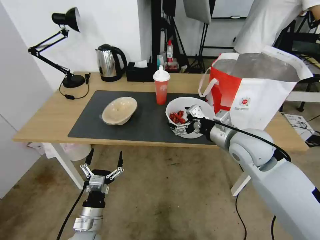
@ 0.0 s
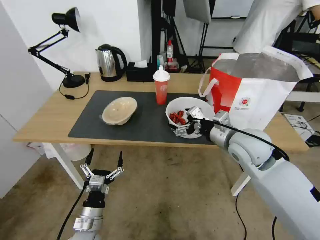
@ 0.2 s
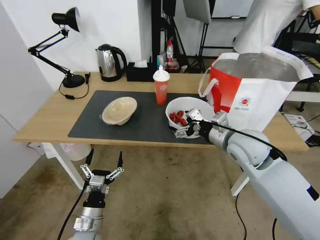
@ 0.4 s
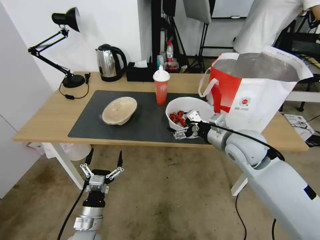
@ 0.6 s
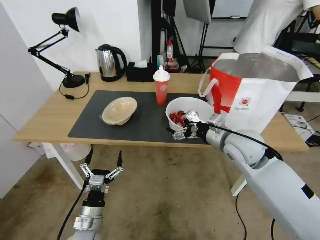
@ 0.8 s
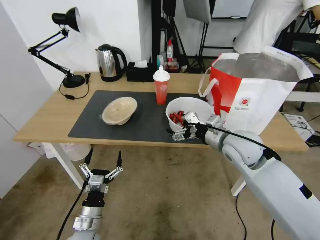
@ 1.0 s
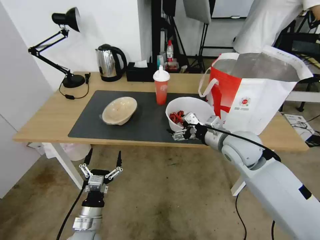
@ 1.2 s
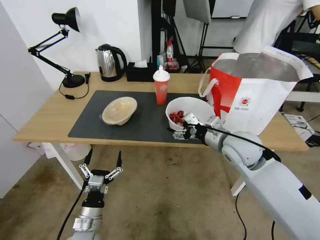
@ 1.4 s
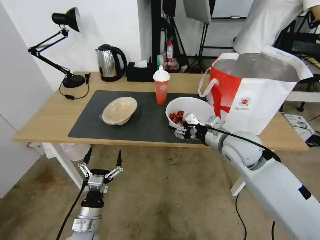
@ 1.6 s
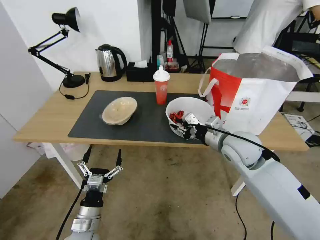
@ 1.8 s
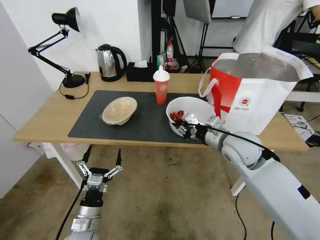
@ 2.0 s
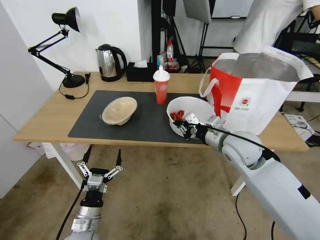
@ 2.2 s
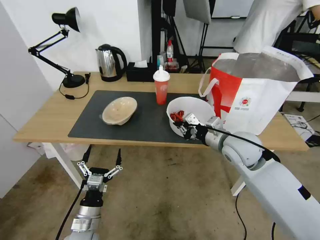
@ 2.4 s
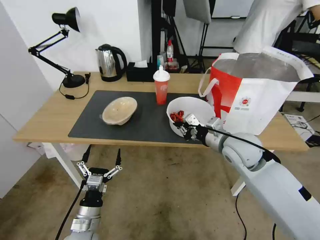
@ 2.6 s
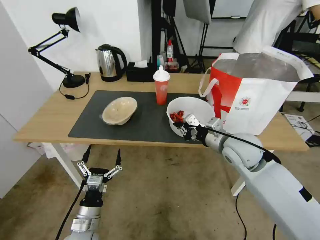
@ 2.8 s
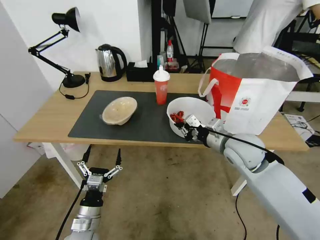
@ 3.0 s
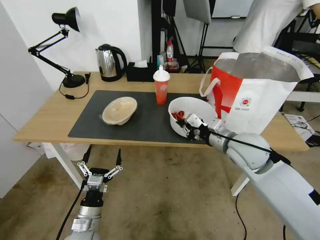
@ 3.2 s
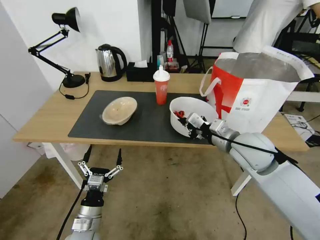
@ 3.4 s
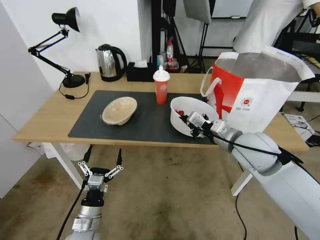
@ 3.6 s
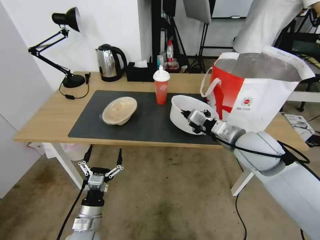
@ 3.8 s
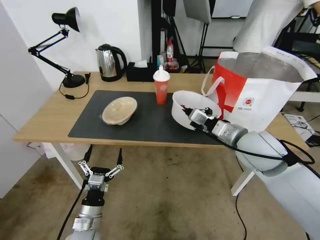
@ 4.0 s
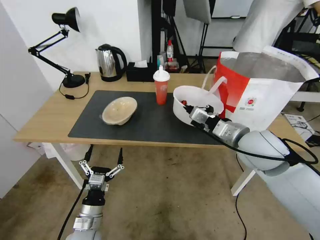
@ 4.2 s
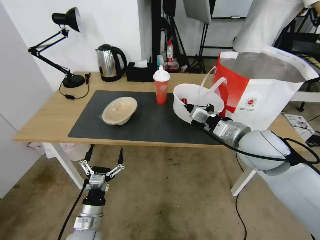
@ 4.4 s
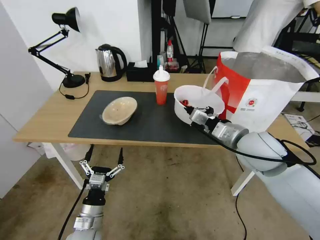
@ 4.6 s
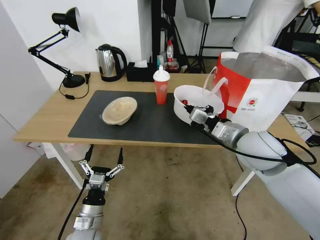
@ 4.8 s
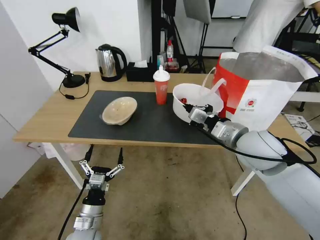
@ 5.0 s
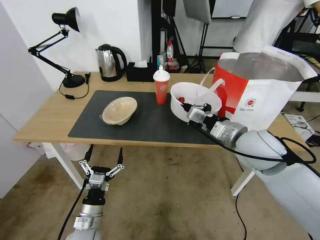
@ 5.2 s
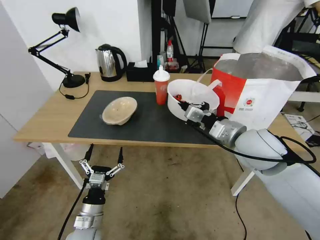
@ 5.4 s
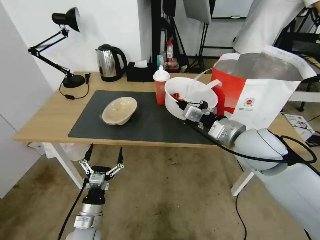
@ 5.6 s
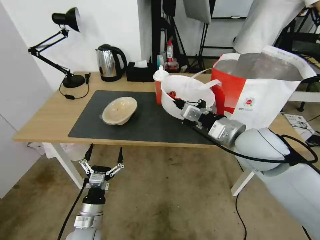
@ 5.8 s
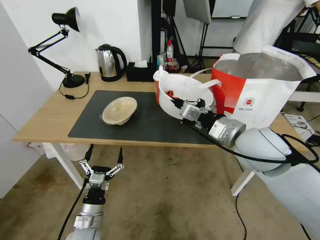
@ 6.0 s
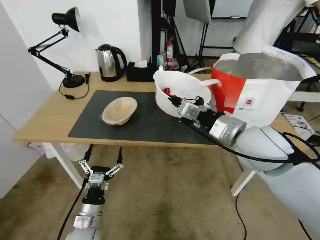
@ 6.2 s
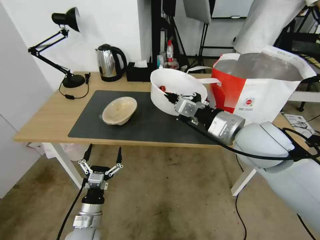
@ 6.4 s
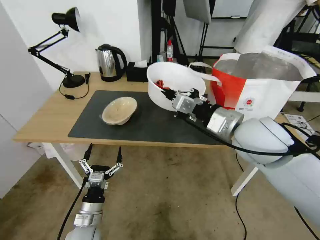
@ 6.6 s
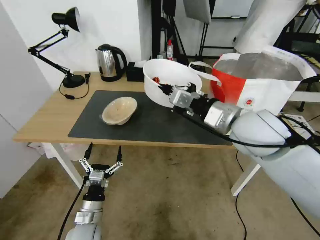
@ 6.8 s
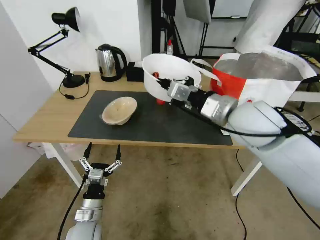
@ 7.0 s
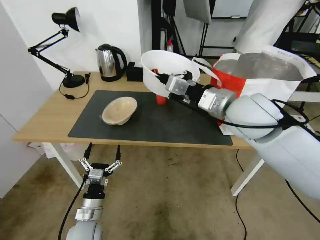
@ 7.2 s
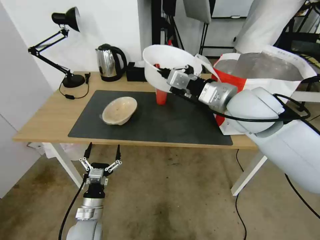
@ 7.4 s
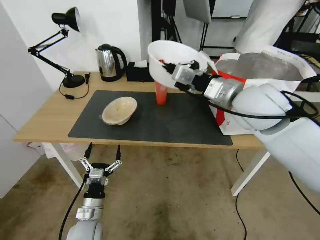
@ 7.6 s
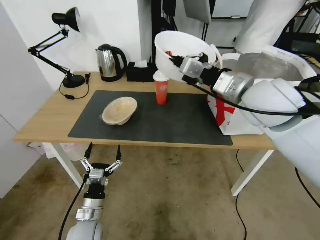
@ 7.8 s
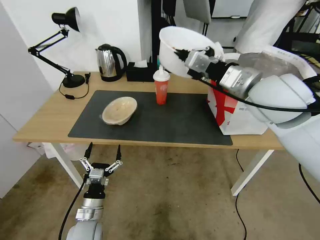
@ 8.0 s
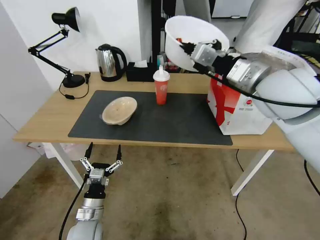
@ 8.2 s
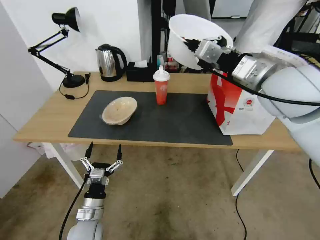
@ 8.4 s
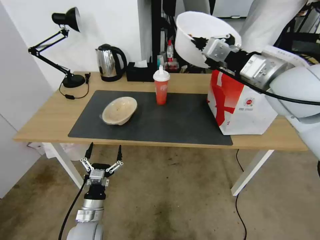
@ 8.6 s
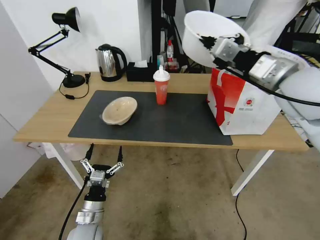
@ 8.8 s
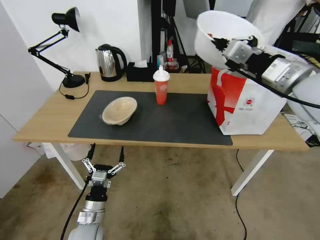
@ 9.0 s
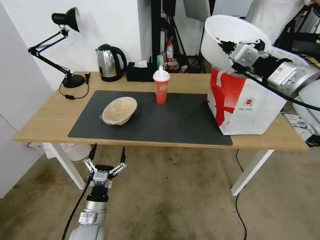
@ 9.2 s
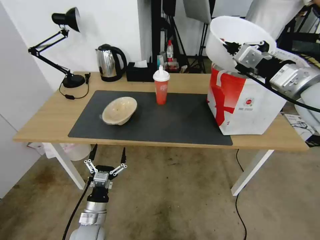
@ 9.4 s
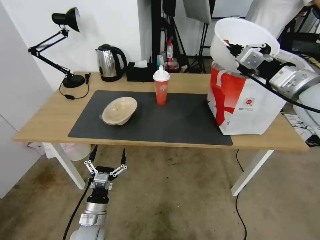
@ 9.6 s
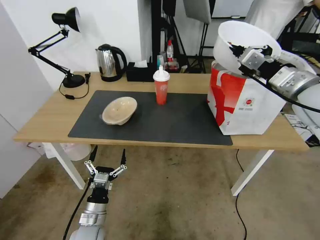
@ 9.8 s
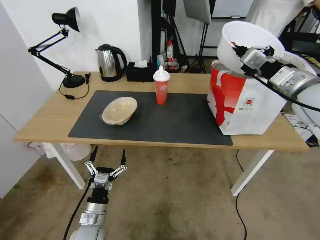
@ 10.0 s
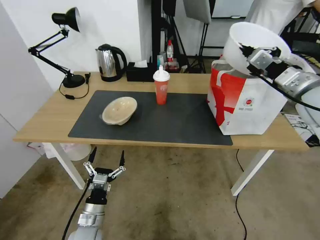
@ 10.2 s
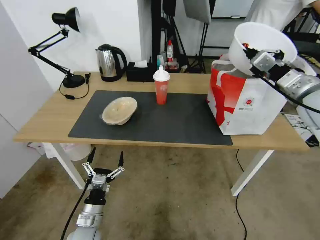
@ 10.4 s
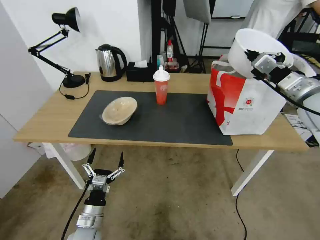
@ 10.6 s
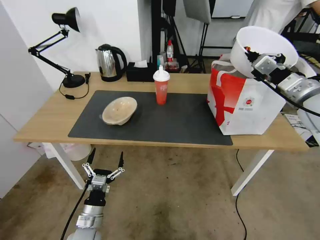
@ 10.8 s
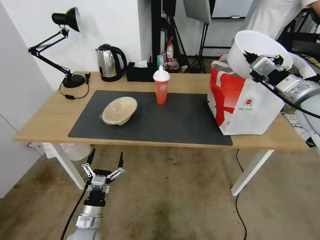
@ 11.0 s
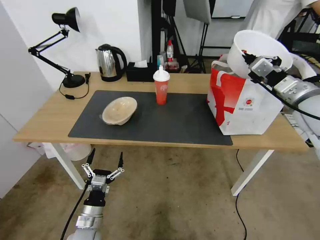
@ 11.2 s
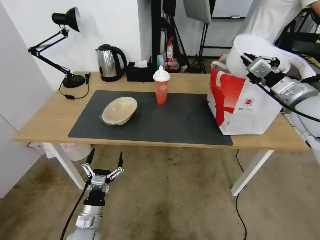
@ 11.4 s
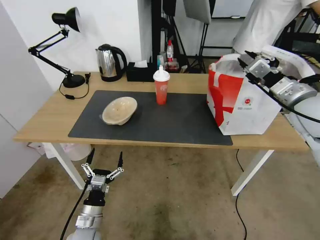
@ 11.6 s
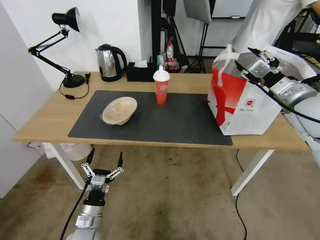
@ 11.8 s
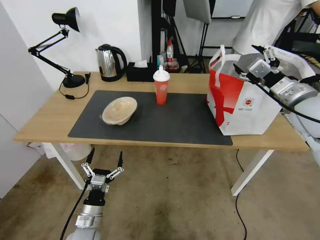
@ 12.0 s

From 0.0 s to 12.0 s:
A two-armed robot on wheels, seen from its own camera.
Task of the whole recording: Pick up the trash from the table and place it into the takeout bag.
From 0.0 s to 1.6 s: The right gripper closes its fingers.
From 1.6 s to 3.0 s: The right gripper closes.
From 3.0 s to 4.4 s: The right gripper moves some 5 cm.
From 4.4 s to 6.0 s: The grippers stay close to where they were, moving slightly.
From 6.0 s to 7.6 s: The right gripper heads upward and forward, covering about 10 cm.
From 7.6 s to 9.0 s: The right gripper heads to the right, covering roughly 10 cm.
From 9.0 s to 10.4 s: The right gripper heads to the right and downward, covering roughly 10 cm.
From 10.4 s to 12.0 s: The right gripper opens.

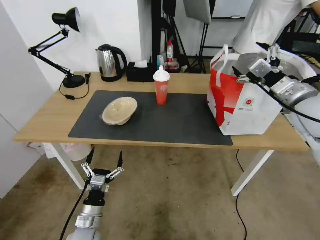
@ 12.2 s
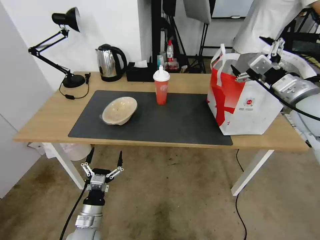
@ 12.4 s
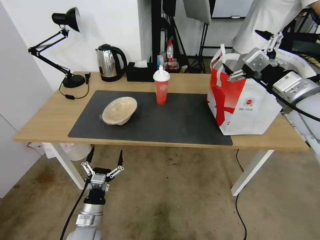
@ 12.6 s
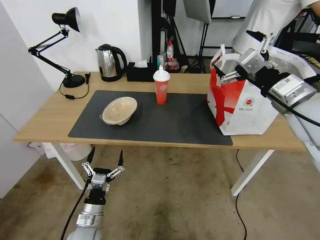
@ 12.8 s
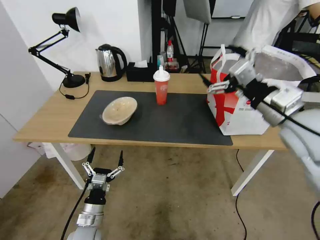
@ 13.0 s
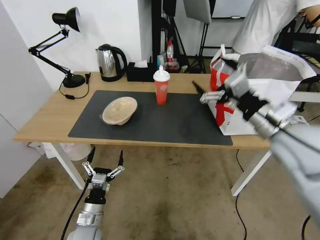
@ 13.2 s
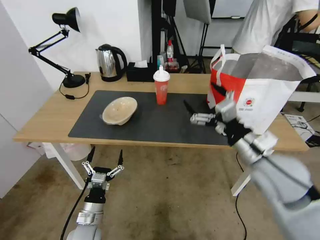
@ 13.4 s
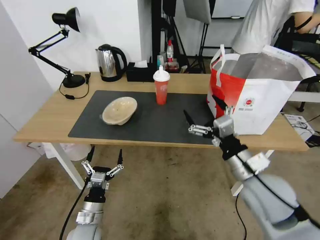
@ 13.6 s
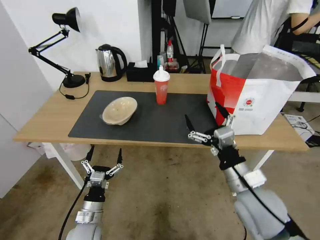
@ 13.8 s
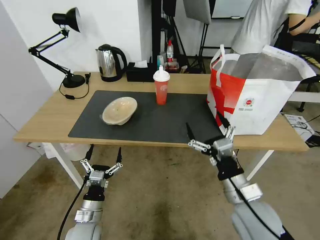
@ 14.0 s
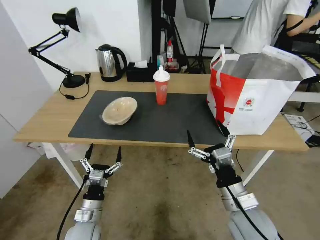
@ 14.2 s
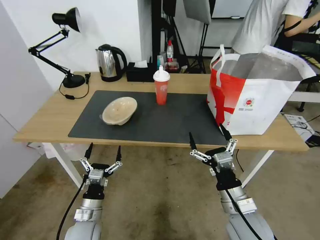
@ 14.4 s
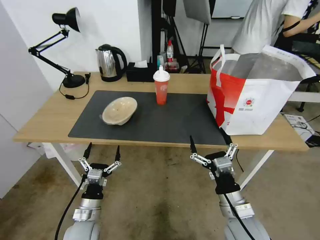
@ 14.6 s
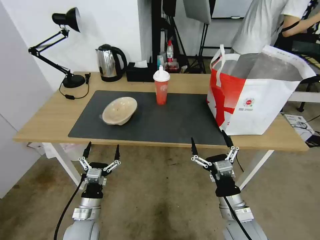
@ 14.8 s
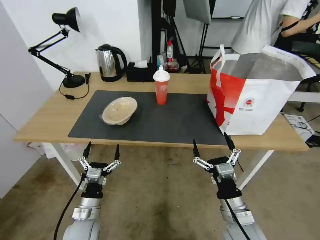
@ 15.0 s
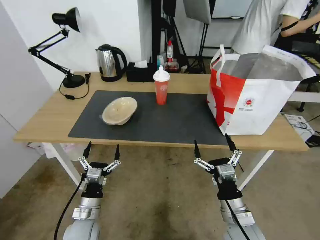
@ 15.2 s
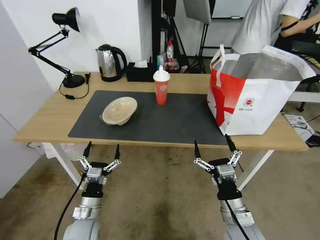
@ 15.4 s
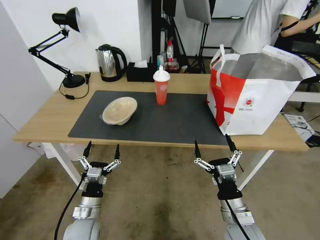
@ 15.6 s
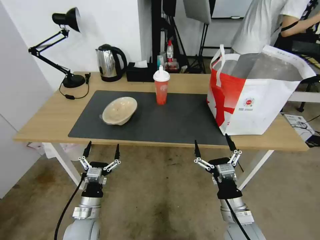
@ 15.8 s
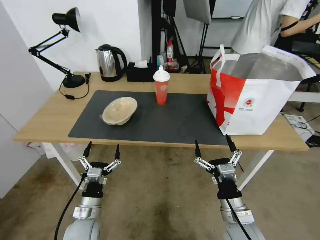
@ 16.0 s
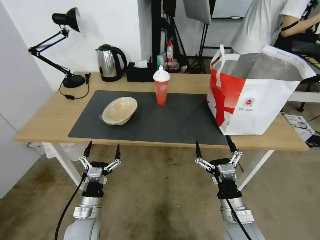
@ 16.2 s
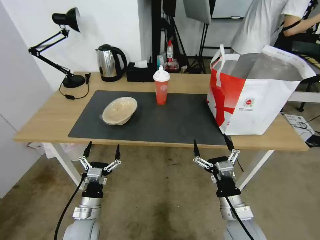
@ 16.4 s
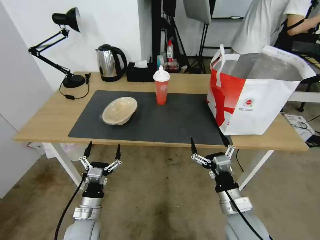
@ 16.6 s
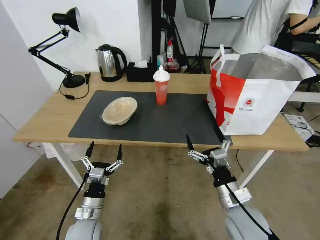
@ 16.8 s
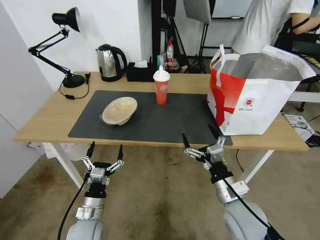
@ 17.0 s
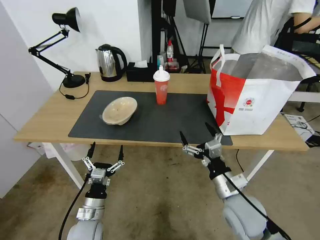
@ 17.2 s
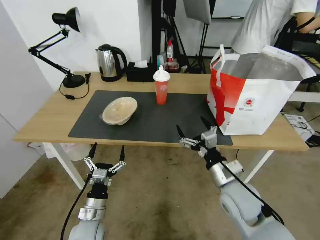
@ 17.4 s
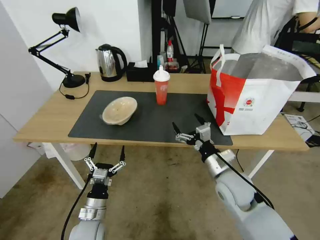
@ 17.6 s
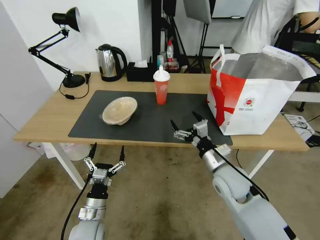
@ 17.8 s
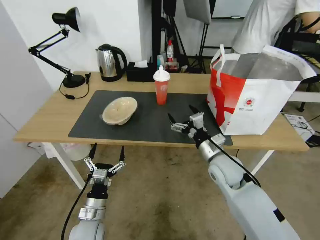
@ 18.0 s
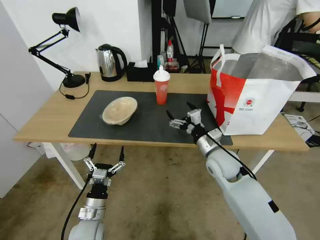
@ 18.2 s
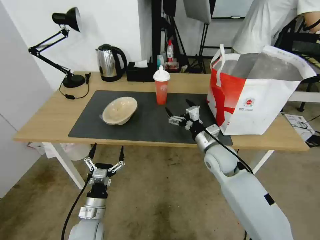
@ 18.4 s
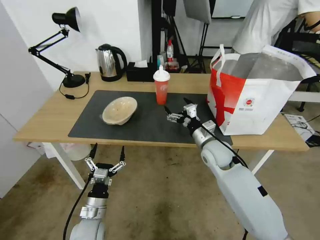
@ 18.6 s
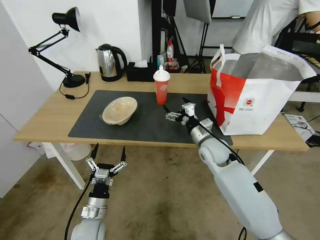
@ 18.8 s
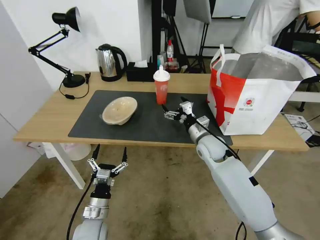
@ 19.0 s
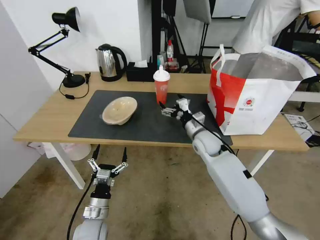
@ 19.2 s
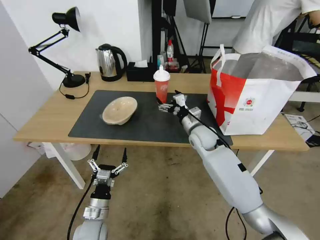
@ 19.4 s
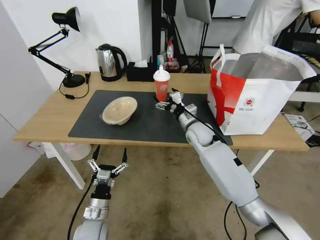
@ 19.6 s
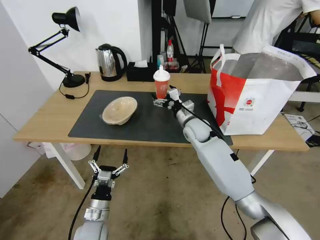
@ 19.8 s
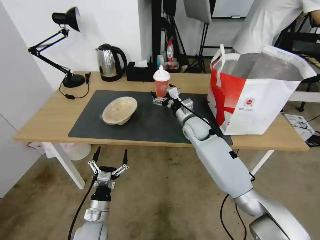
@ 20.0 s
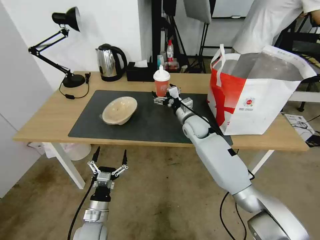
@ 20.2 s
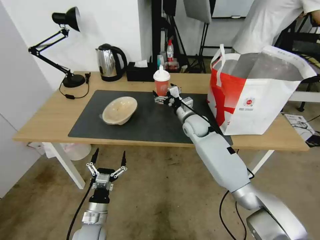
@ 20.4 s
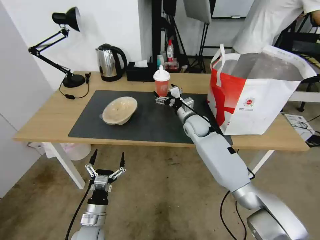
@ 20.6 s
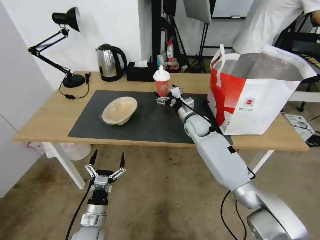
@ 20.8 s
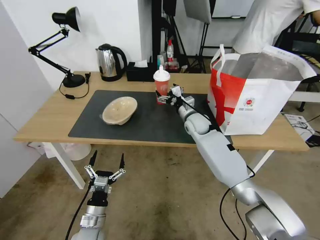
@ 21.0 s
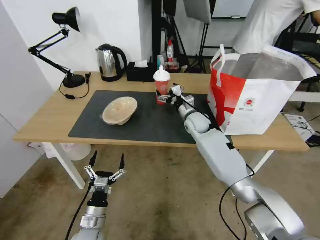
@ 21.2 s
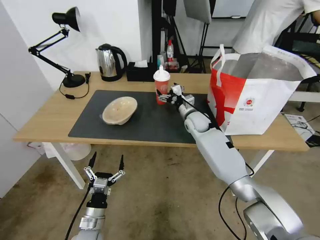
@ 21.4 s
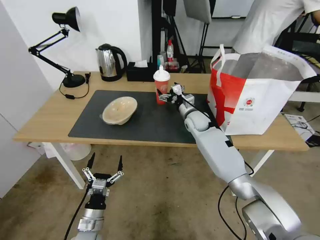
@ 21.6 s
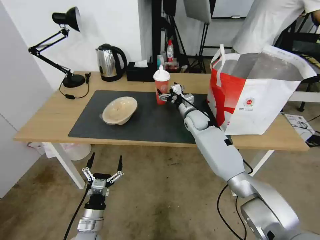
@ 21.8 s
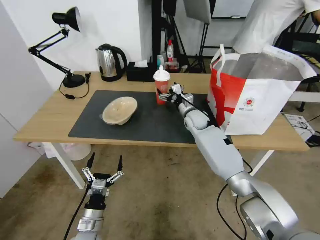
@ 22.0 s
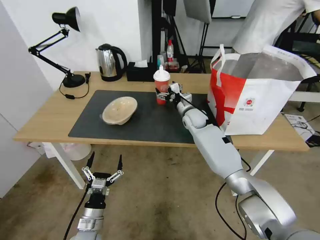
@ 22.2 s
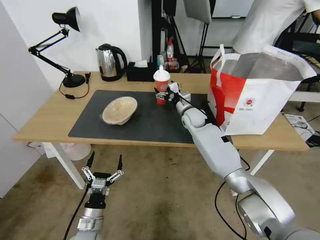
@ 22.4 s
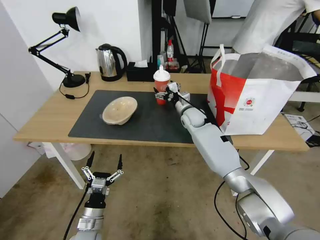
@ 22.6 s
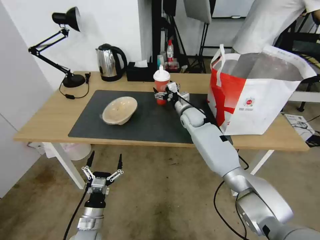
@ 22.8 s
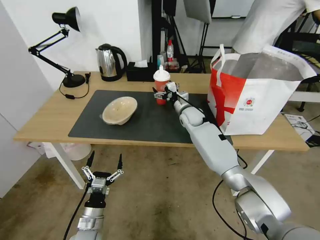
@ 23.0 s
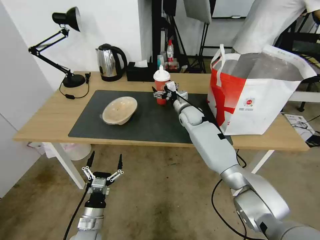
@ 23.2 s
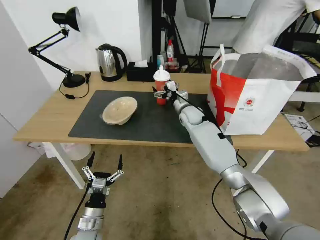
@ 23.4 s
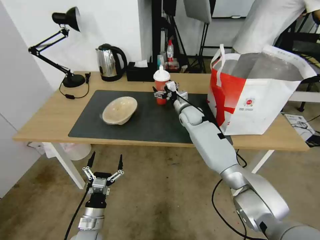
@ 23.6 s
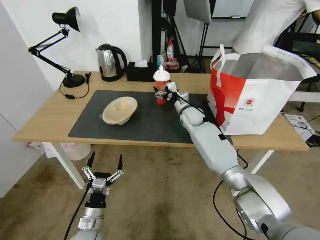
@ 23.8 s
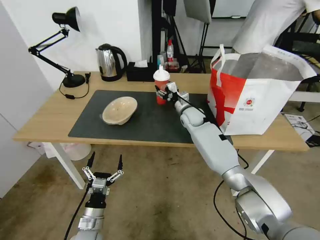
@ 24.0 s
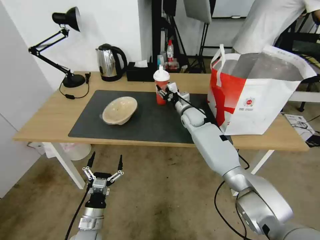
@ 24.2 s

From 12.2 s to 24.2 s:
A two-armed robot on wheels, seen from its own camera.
Task of the whole recording: Pick up the trash from the table and place it into the takeout bag.
From 12.2 s to 13.8 s: The right gripper goes approximately 25 cm downward, backward and to the left.
From 13.8 s to 15.2 s: The right gripper moves downward, about 10 cm.
From 15.2 s to 16.6 s: The grippers make only small movements.
From 16.6 s to 18.2 s: The right gripper is displaced forward by about 15 cm.
From 18.2 s to 19.8 s: The right gripper heads forward and to the left, covering about 15 cm.
From 19.8 s to 21.2 s: The right gripper moves some 5 cm.
From 21.2 s to 22.6 s: The grippers stay close to where they were, moving slightly.
From 22.6 s to 24.2 s: The right gripper closes its fingers.
